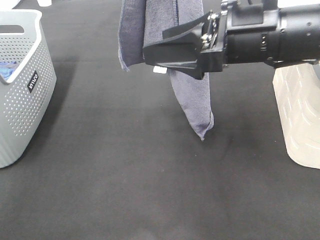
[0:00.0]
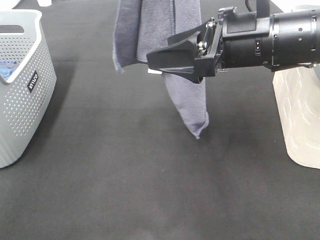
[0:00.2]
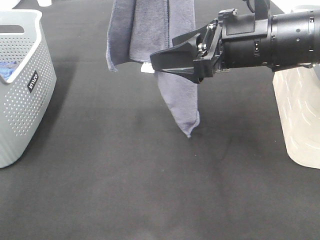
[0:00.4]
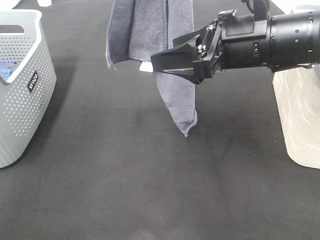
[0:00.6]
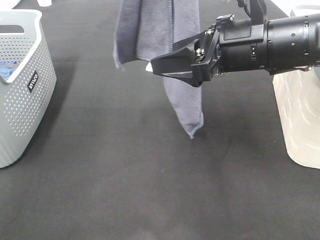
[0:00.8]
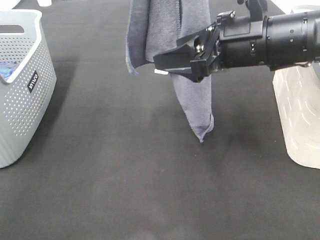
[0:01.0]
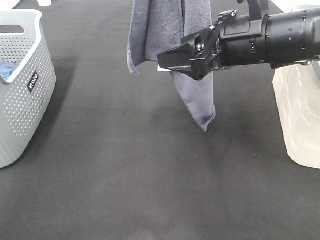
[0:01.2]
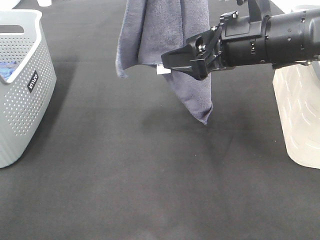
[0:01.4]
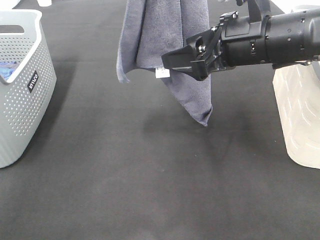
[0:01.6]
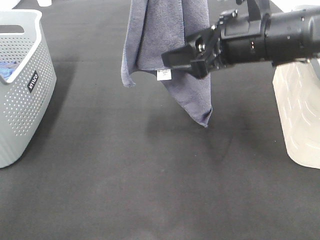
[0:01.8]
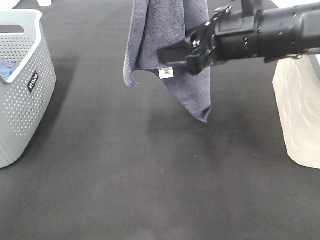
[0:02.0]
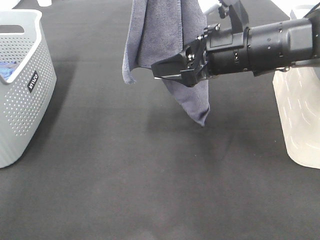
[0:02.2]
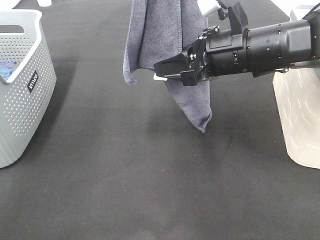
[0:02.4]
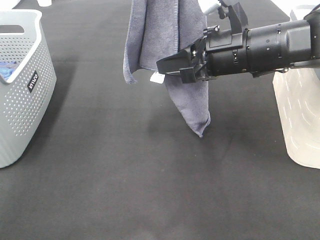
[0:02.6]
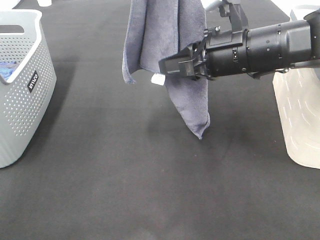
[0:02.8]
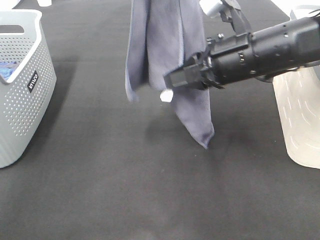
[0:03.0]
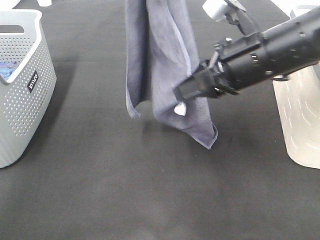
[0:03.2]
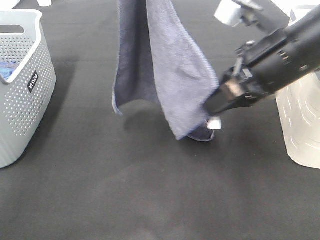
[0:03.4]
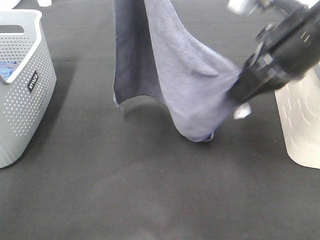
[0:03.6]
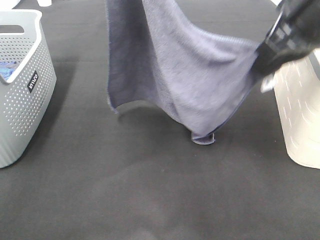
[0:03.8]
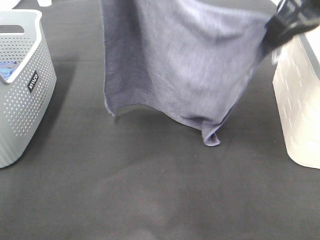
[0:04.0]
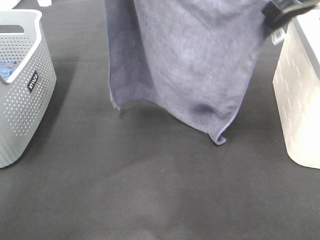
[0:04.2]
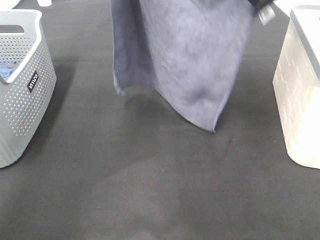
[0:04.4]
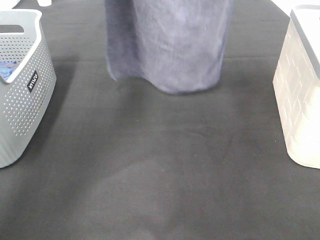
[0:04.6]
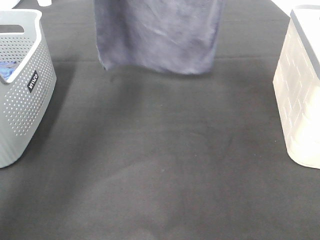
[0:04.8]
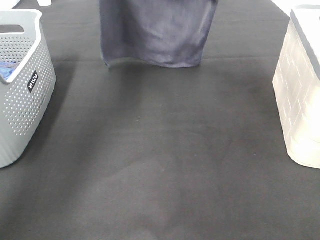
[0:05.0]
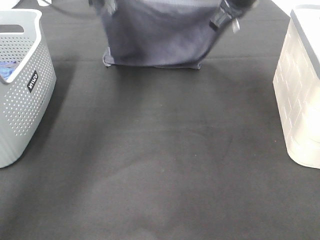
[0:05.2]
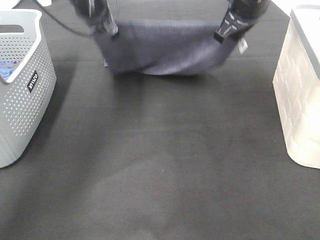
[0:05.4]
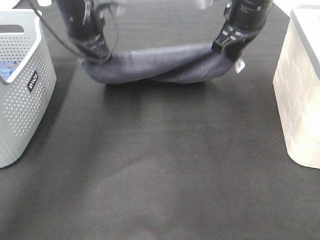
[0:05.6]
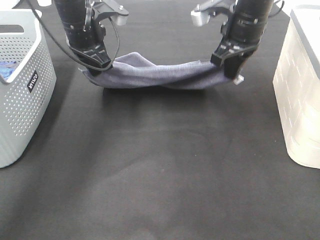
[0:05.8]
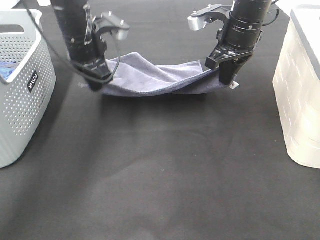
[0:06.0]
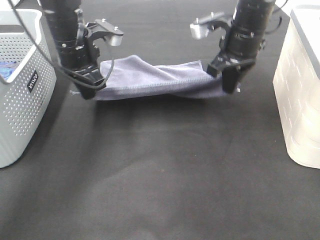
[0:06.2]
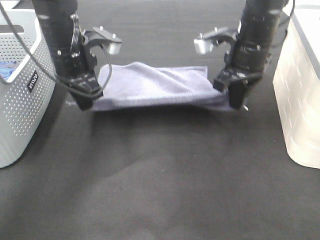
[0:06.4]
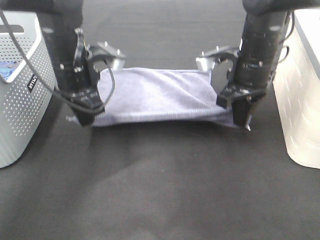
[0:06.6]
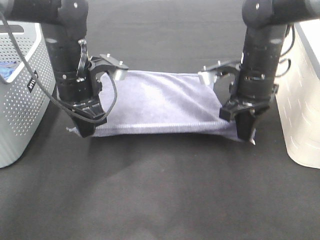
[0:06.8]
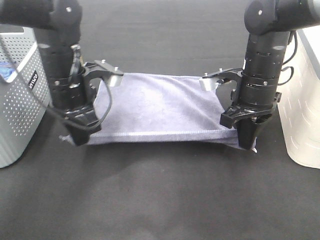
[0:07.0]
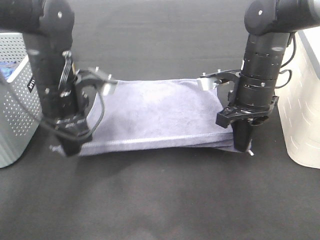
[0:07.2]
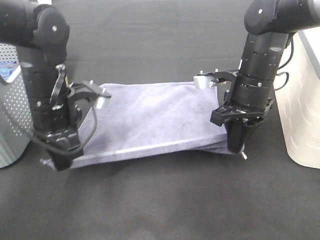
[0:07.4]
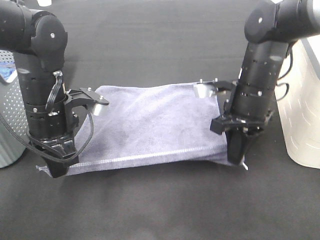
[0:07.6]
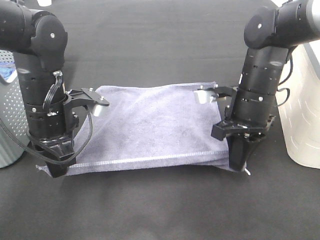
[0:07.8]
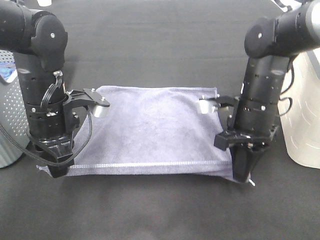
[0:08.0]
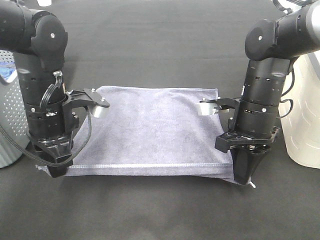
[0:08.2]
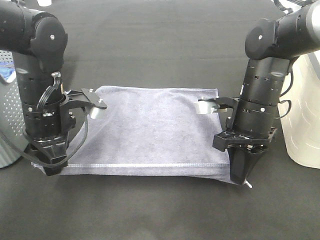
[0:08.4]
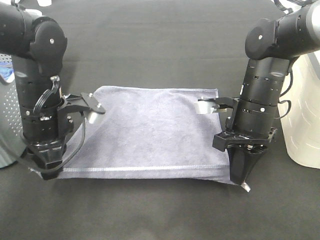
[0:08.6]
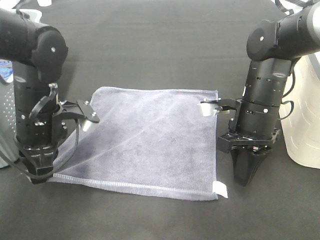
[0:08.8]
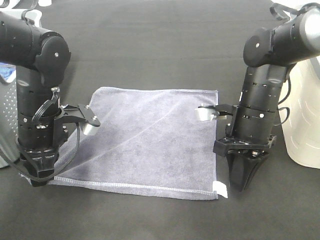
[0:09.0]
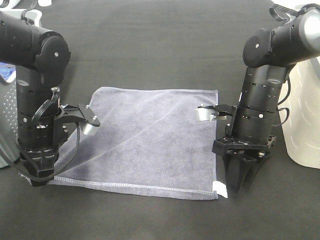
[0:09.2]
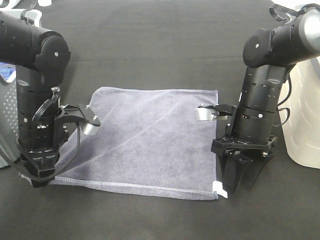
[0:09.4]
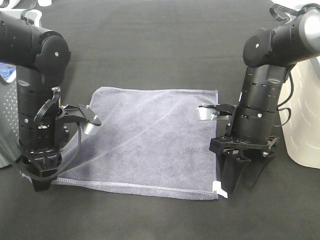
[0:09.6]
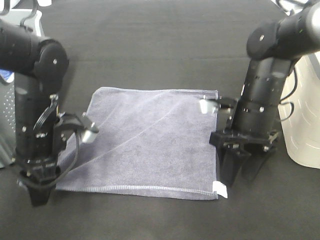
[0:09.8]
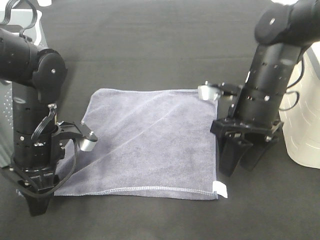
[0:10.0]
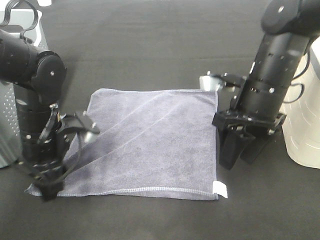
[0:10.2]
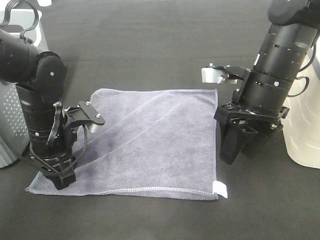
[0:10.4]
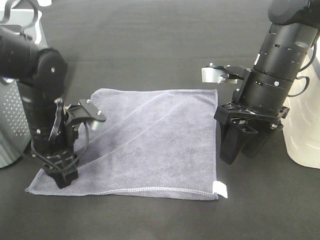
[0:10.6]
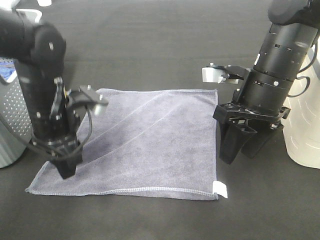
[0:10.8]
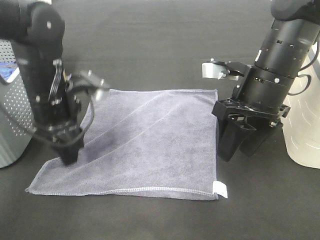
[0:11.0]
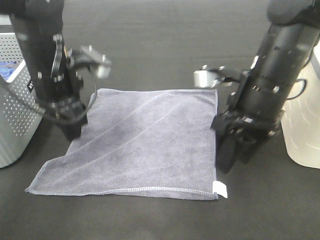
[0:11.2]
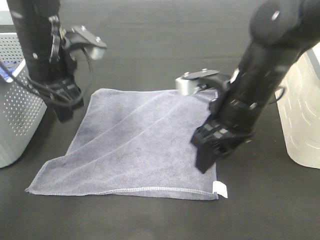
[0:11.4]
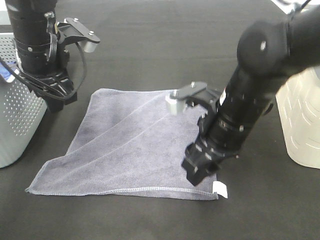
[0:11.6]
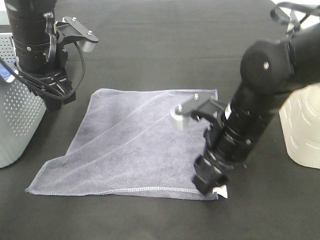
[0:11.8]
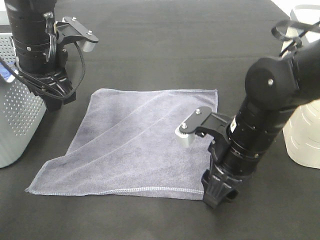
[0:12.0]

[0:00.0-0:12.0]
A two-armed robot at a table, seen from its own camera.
Task of the whole recording: Remove the towel and place it.
Step, 0:01.2 to 0:04.6: Right hand: spread the grey towel flat on the table.
Step, 0:01.2 to 0:06.0: Left hand: spread the grey towel flat on the table.
Step, 0:06.2 to 0:09.8: Right hand:adjust the gray towel.
0:00.0 to 0:01.6: The grippers move only a little.
0:01.6 to 0:03.0: The right gripper closes its fingers.
0:03.0 to 0:04.4: The right gripper is displaced upward and forward by approximately 15 cm. The left gripper travels forward and downward by roughly 10 cm.
0:04.4 to 0:06.0: The left gripper goes about 20 cm downward. The right gripper goes approximately 15 cm downward and forward.
0:06.0 to 0:07.6: The left gripper is displaced backward by roughly 15 cm. The right gripper travels backward and downward by roughly 15 cm.
0:09.0 to 0:10.4: The left gripper opens up; the right gripper is displaced upward by some 5 cm, and opens.
0:10.4 to 0:12.0: The right gripper moves backward and downward, roughly 10 cm. The left gripper is displaced upward and forward by approximately 15 cm.

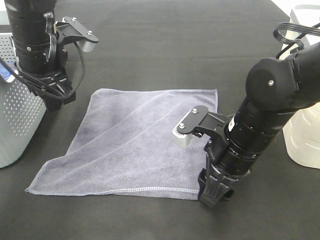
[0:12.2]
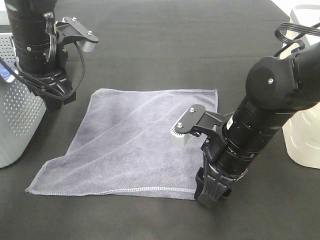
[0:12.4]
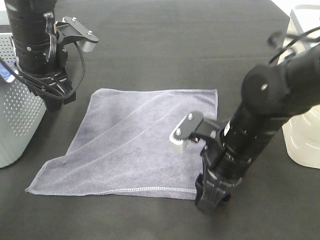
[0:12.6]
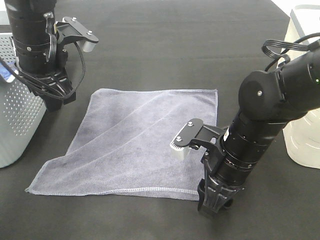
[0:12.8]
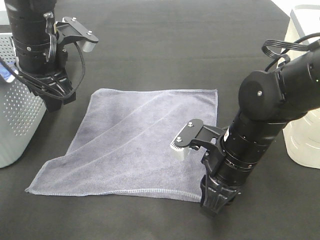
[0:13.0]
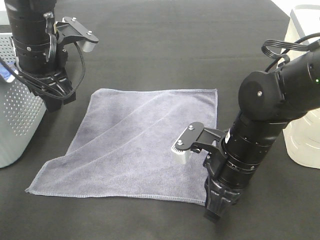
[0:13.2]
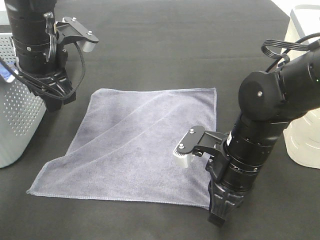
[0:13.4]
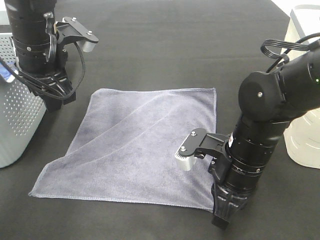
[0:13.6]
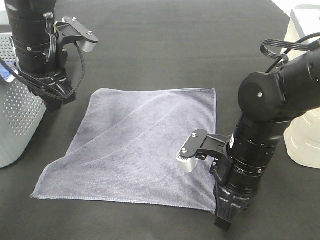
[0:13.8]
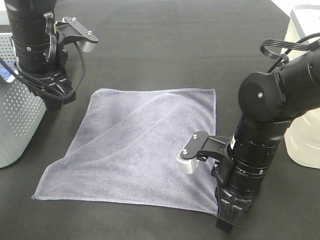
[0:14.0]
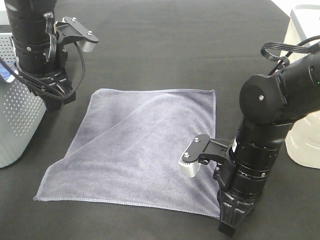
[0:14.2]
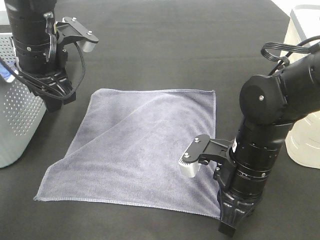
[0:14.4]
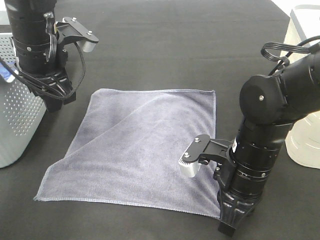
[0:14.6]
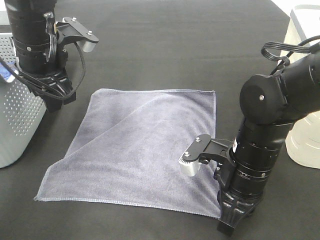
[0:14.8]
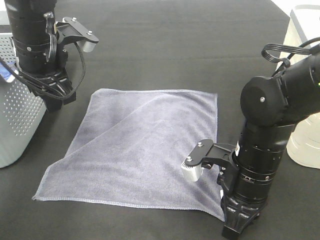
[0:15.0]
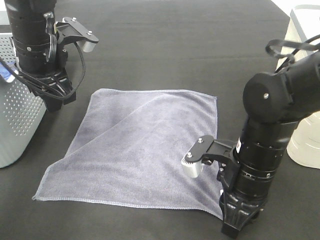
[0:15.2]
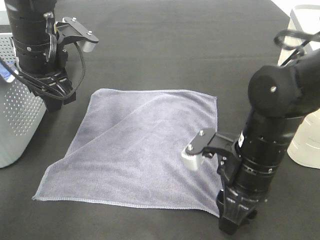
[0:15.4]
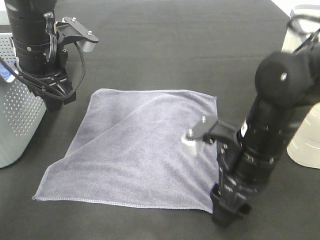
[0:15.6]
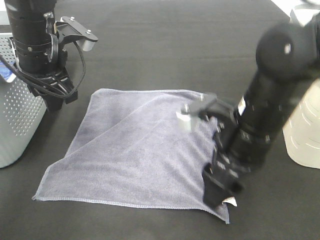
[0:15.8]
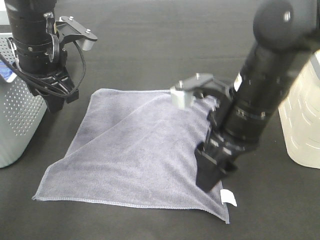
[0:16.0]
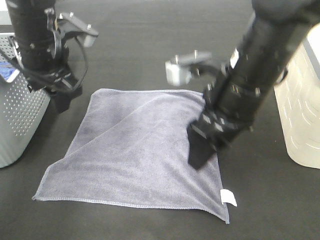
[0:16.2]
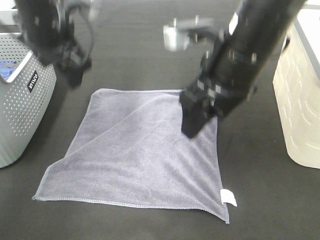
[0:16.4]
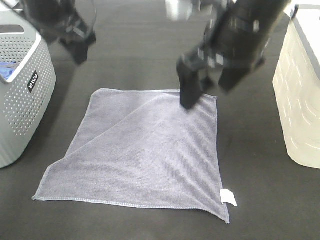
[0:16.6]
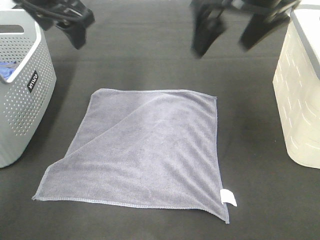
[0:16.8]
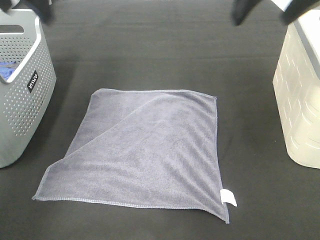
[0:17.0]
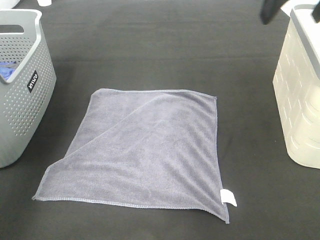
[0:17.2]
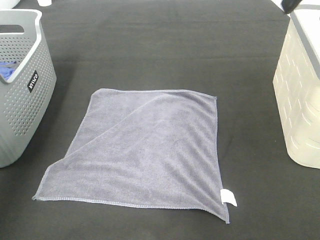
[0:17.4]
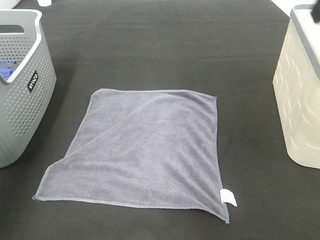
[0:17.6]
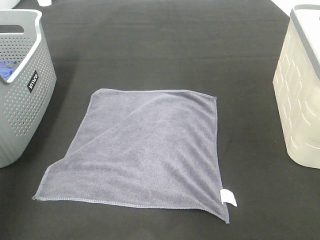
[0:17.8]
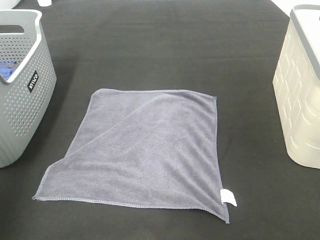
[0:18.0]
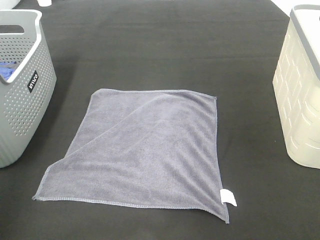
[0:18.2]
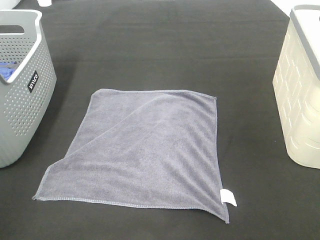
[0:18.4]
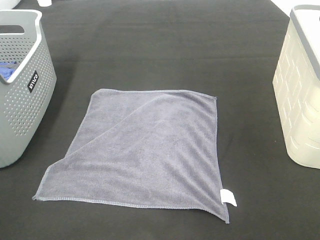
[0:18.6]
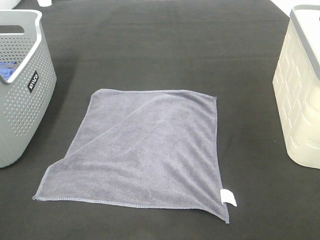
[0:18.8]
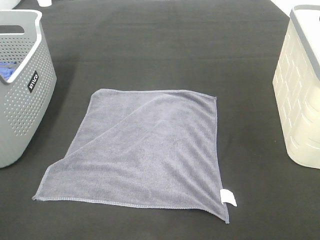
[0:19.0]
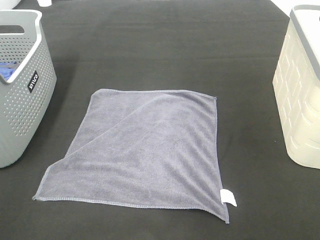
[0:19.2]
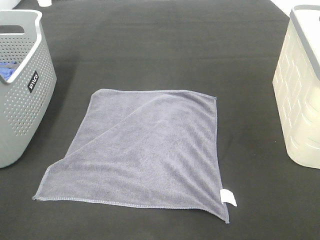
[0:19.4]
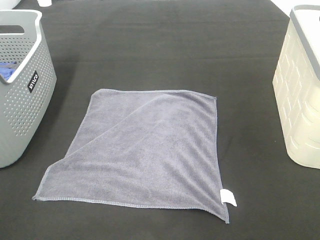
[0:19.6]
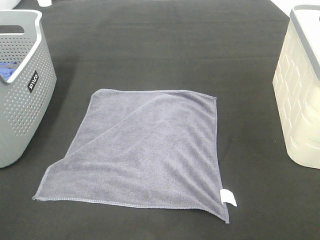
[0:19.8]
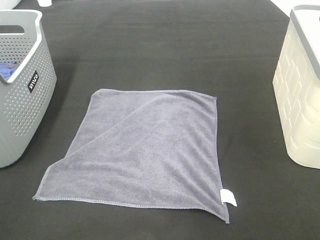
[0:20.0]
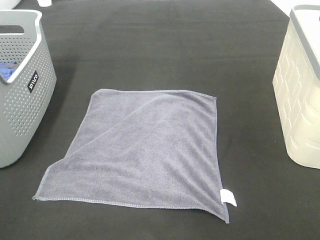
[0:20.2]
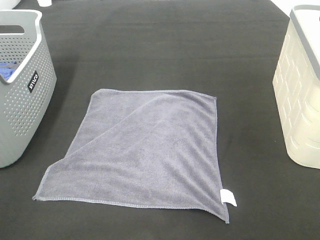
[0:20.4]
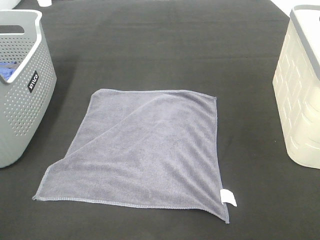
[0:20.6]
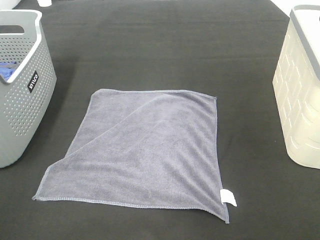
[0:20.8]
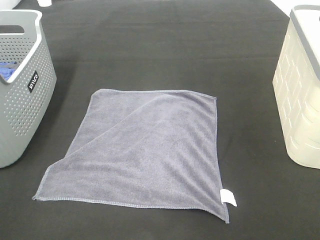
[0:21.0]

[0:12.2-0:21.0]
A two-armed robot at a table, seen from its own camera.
Task of the whole recording: Remove the towel and place it.
0:12.2 to 0:13.6: The right gripper closes.
0:13.6 to 0:15.2: The grippers make only small movements.
0:15.2 to 0:16.6: The right gripper travels upward by some 20 cm, and opens up; the left gripper heads upward, covering roughly 10 cm.
0:16.6 to 0:18.0: The left gripper is displaced backward and to the left by approximately 30 cm. The right gripper is displaced to the right, backward and upward by approximately 25 cm.
0:18.0 to 0:19.6: The left gripper moves backward and downward, approximately 20 cm.

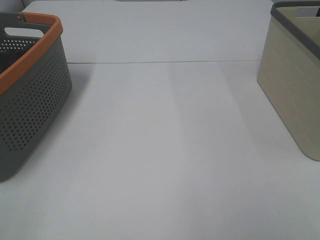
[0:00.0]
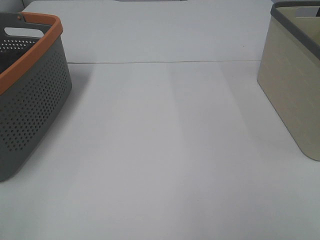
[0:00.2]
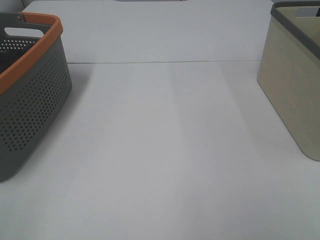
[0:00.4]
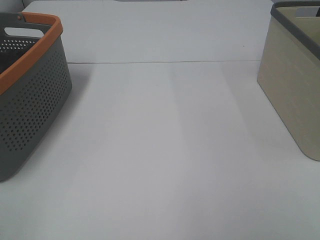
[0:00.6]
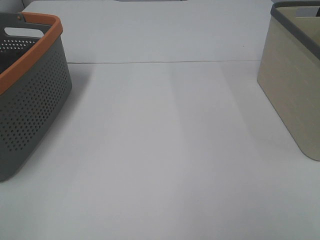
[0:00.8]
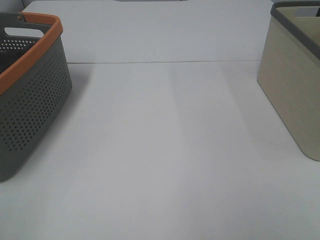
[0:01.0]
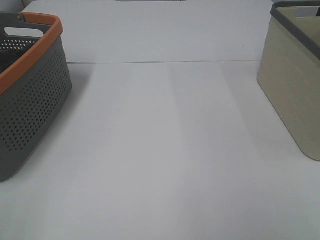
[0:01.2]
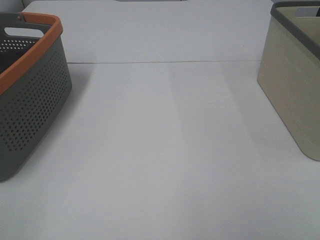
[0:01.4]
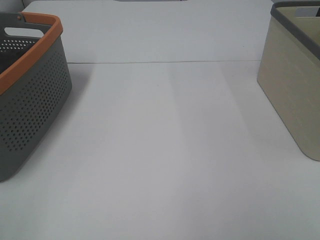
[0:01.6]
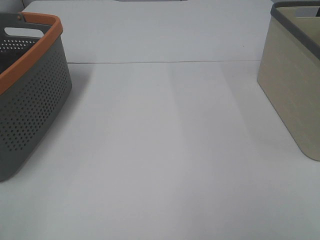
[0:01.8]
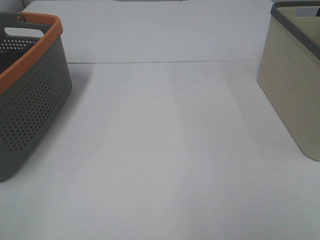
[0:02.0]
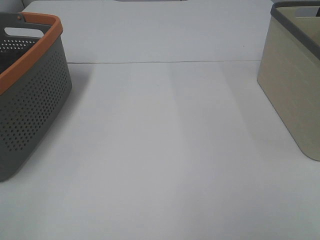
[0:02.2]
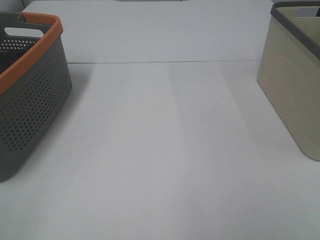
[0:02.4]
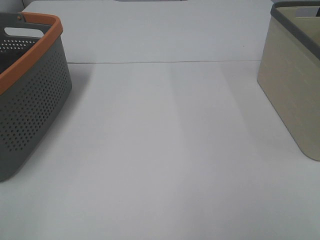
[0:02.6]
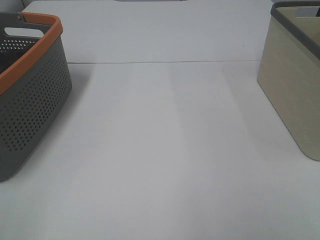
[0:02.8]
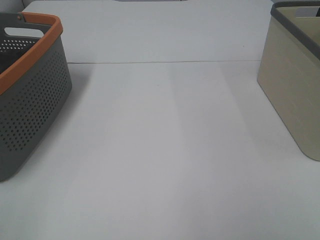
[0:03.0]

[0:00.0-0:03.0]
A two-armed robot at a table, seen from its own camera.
Task of the whole recording: Remove the towel and place it.
0:00.0 to 0:03.0: Neither gripper changes place.
